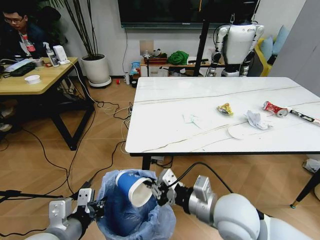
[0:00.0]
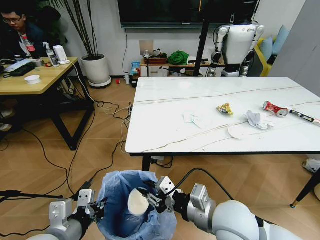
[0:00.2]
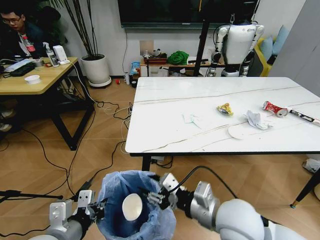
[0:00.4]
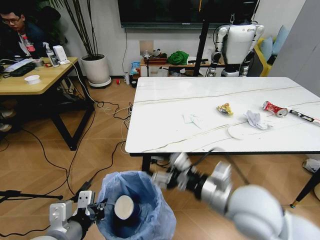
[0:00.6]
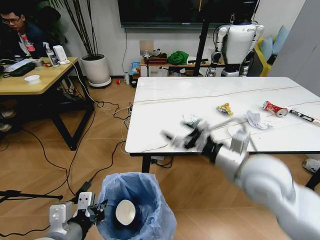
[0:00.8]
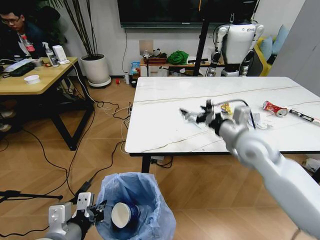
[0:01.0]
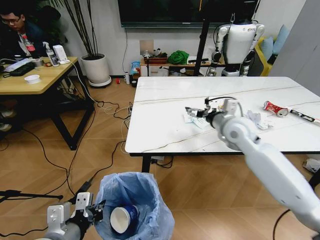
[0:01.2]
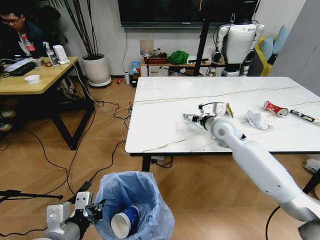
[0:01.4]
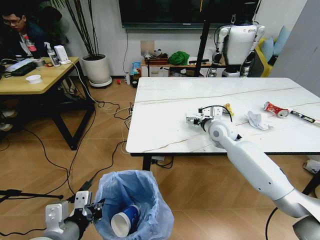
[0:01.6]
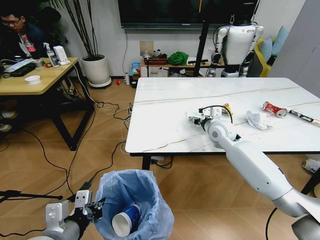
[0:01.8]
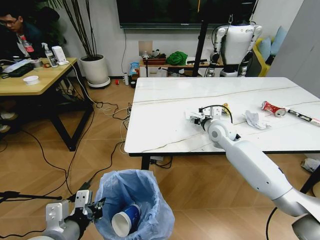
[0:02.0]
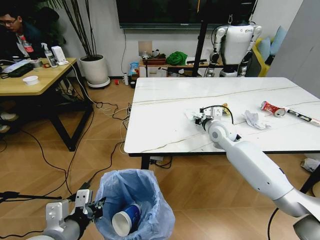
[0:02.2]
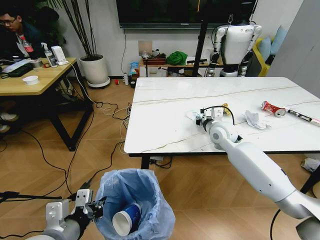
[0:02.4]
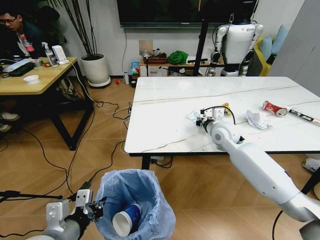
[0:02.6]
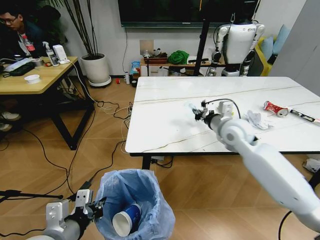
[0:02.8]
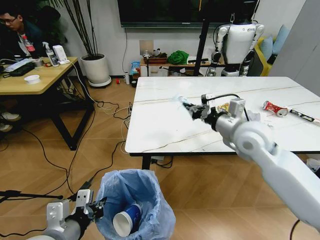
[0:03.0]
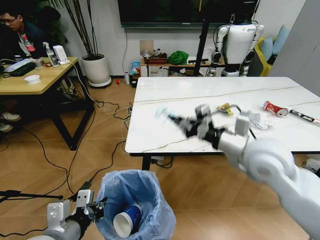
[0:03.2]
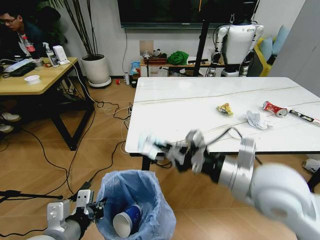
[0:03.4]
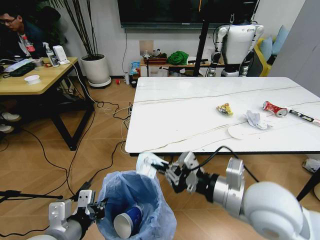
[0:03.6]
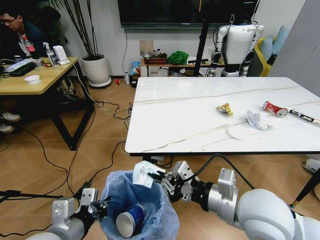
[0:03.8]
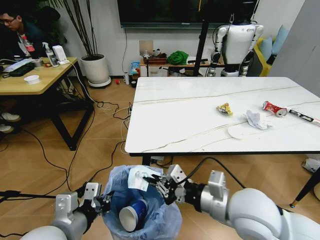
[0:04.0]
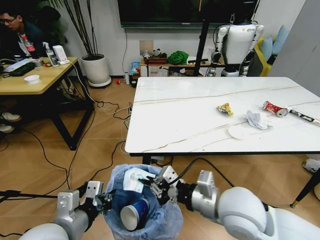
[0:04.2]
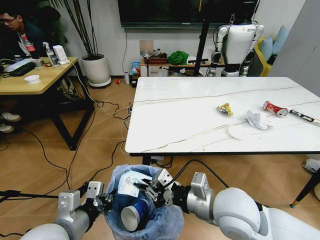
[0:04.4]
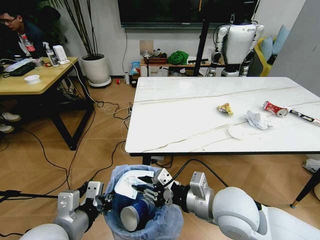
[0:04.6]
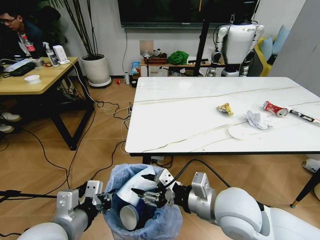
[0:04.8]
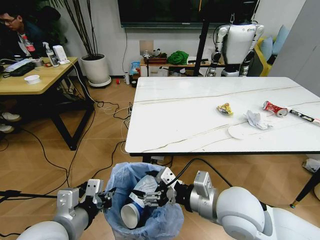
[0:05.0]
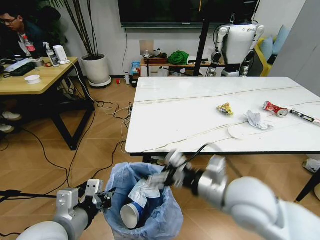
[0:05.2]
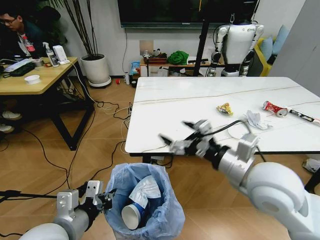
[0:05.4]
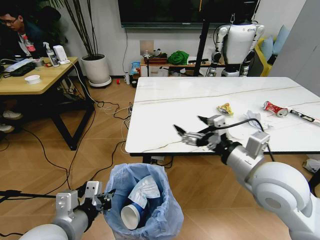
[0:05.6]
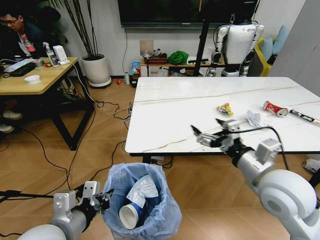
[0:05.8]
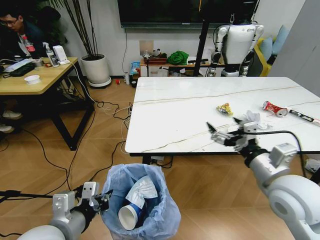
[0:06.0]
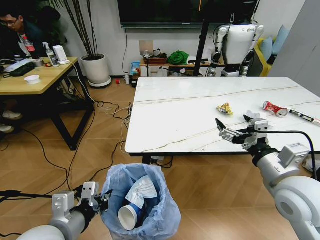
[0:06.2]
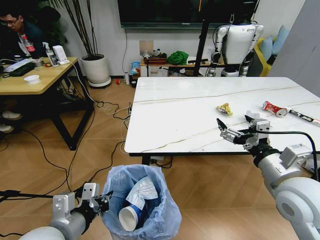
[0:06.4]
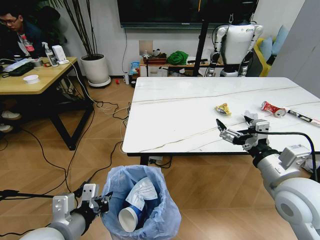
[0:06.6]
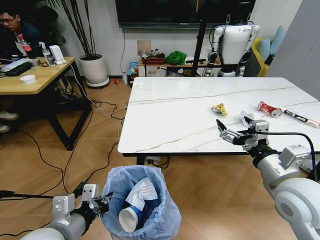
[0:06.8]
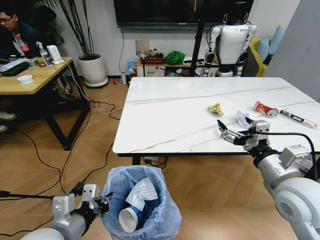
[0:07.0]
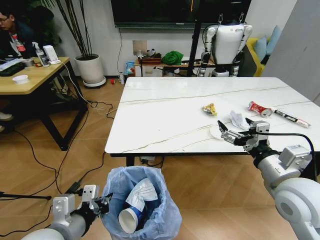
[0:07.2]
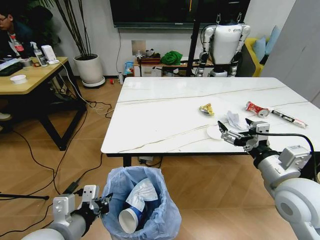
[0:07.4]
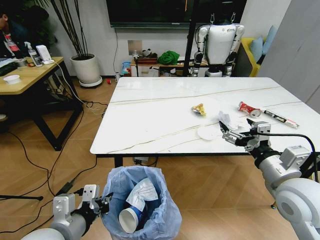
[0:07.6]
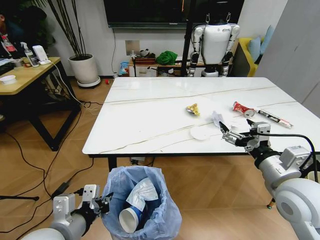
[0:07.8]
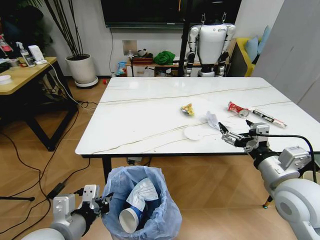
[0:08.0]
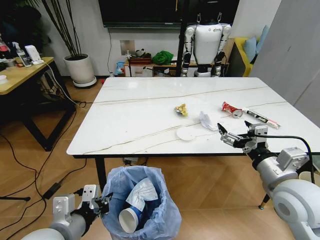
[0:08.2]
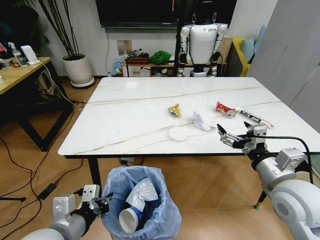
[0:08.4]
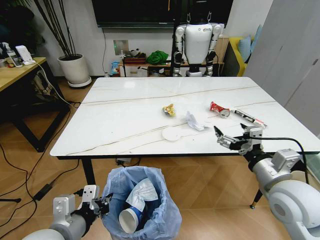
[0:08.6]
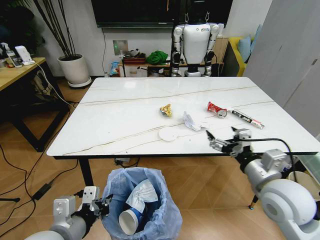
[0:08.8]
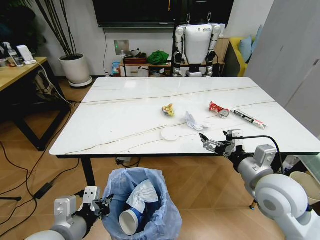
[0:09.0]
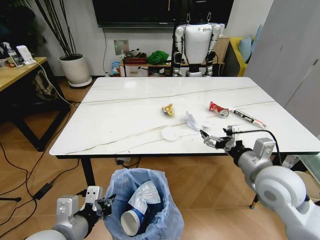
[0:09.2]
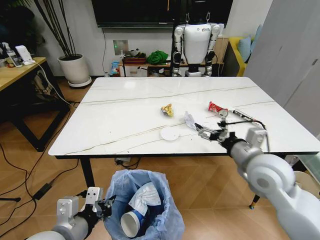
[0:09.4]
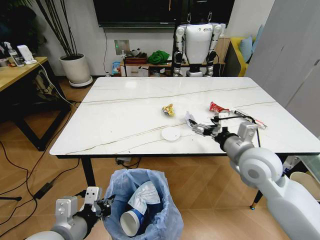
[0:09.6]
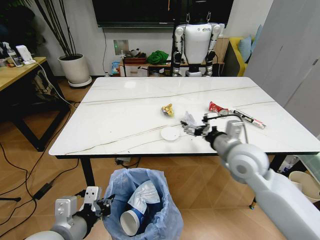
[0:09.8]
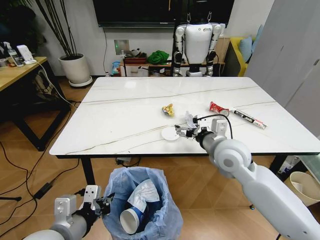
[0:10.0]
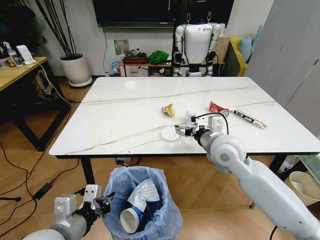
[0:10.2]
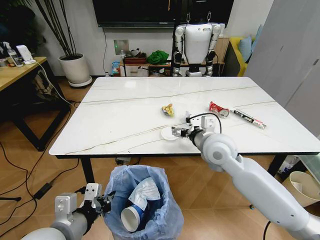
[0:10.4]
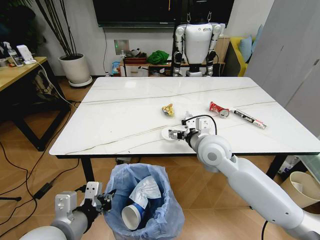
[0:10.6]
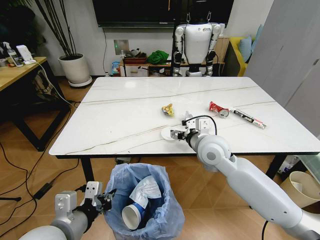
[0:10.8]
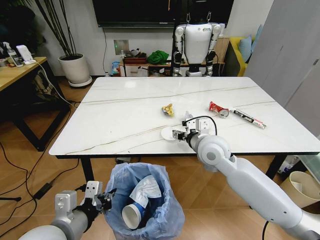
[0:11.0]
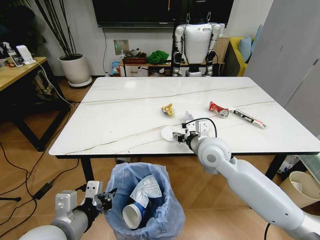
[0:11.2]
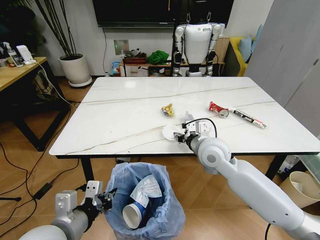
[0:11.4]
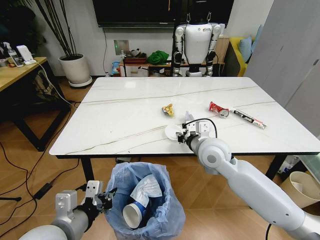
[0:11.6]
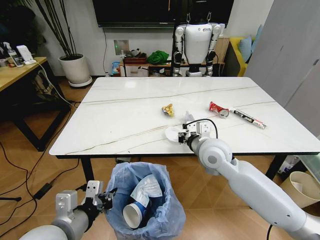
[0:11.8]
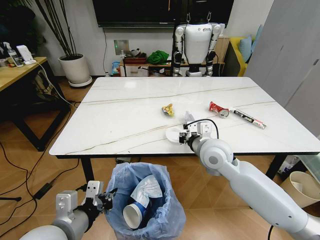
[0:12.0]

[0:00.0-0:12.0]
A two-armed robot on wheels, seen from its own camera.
Task of the whole recording: Pick up the trash bin and place the trash from the table into it.
0:00.0 to 0:01.6: The right gripper moves forward, approximately 30 cm, and opens its fingers.
0:01.6 to 0:03.0: The right gripper moves backward and upward, about 15 cm, and closes up.
0:03.0 to 0:04.4: The right gripper shifts approximately 20 cm backward, to the left and downward.
0:04.4 to 0:06.0: The right gripper moves to the right, some 15 cm, and opens up.
0:09.0 to 0:10.4: The right gripper moves forward and to the left, approximately 15 cm.
0:10.4 to 0:12.0: The right gripper closes up.

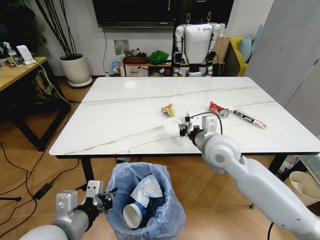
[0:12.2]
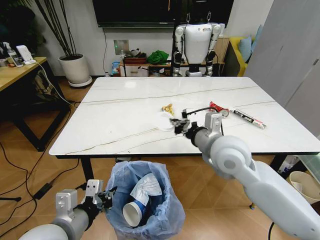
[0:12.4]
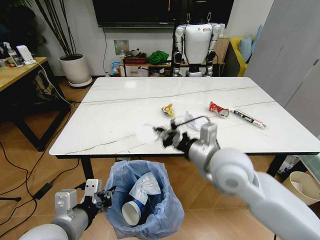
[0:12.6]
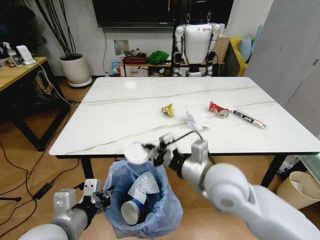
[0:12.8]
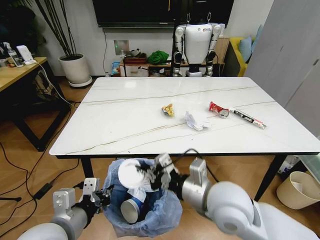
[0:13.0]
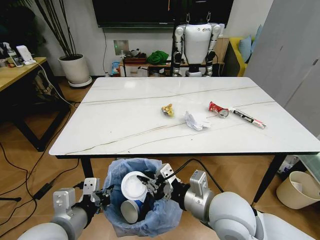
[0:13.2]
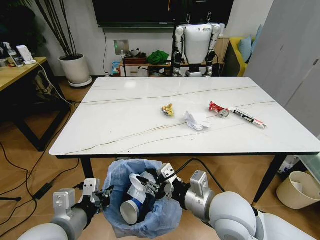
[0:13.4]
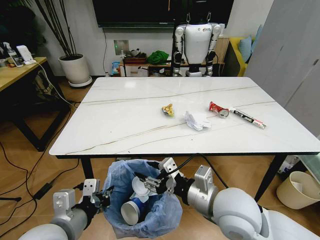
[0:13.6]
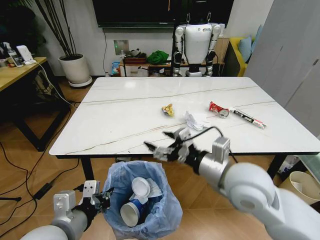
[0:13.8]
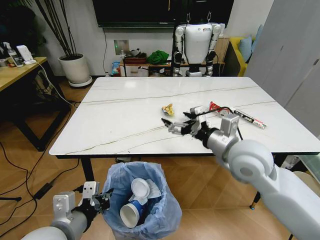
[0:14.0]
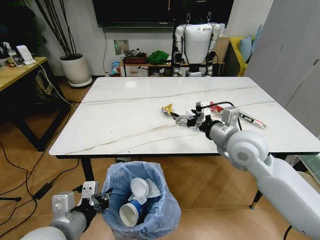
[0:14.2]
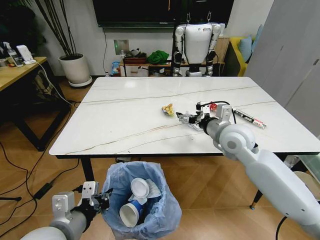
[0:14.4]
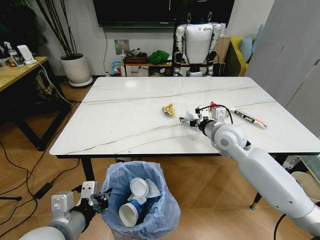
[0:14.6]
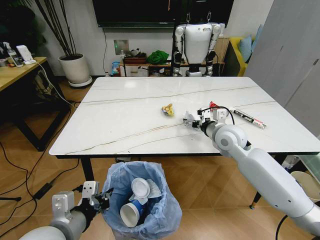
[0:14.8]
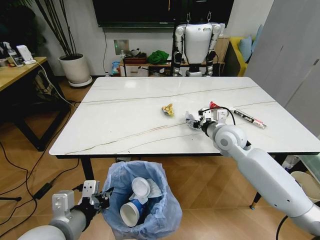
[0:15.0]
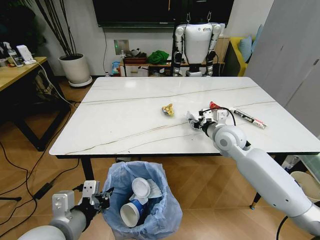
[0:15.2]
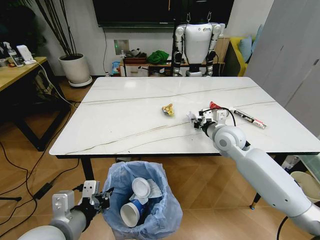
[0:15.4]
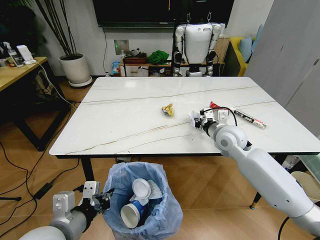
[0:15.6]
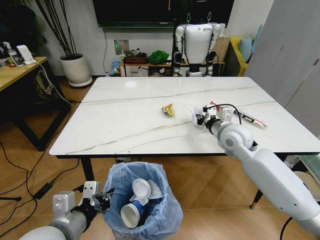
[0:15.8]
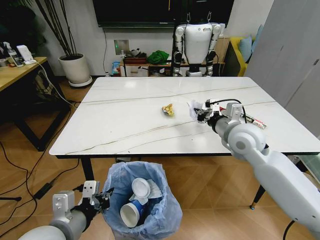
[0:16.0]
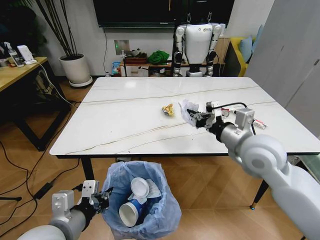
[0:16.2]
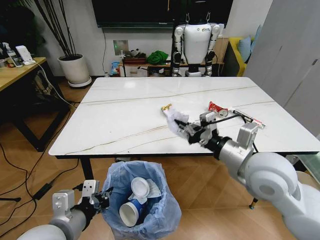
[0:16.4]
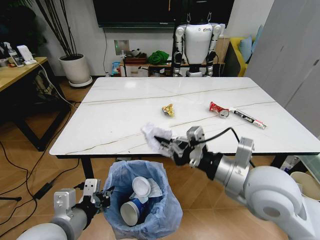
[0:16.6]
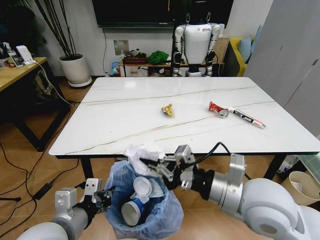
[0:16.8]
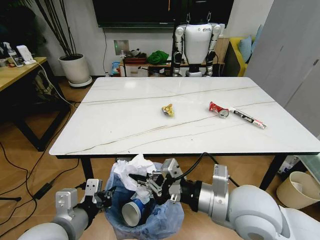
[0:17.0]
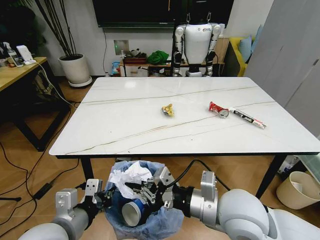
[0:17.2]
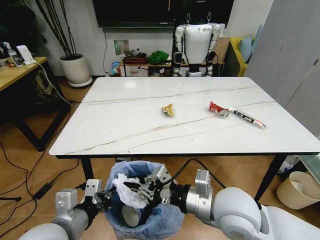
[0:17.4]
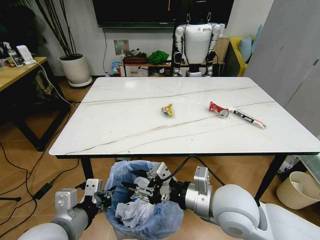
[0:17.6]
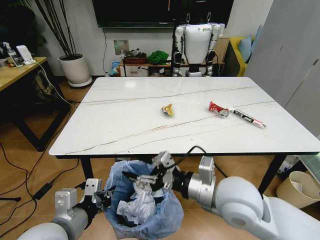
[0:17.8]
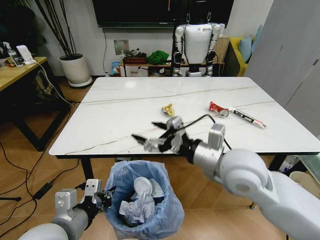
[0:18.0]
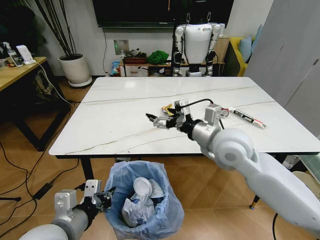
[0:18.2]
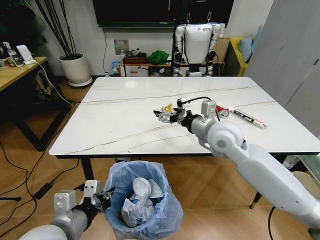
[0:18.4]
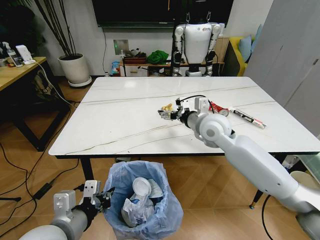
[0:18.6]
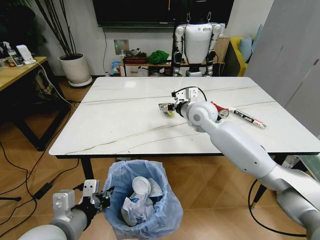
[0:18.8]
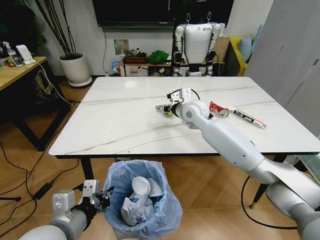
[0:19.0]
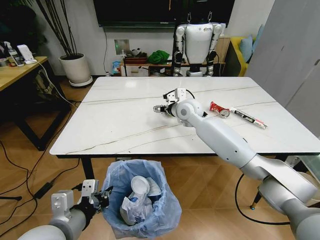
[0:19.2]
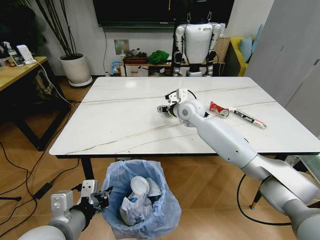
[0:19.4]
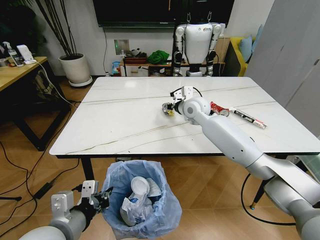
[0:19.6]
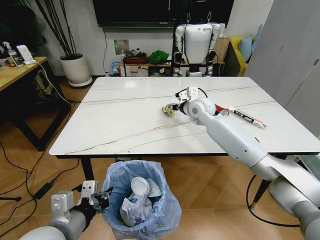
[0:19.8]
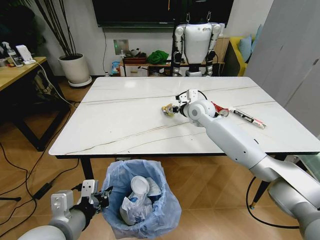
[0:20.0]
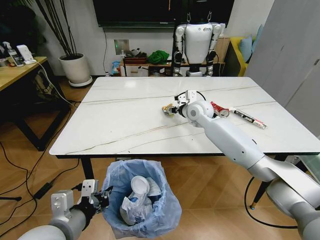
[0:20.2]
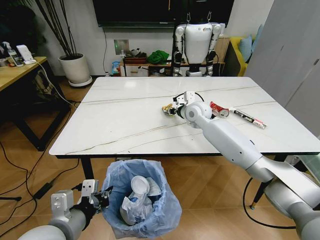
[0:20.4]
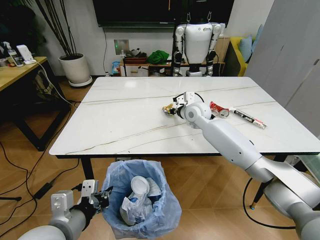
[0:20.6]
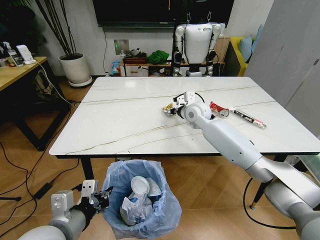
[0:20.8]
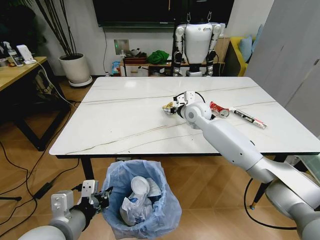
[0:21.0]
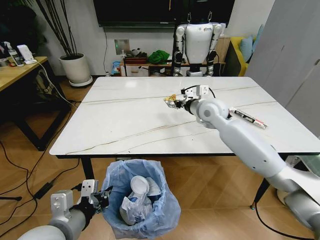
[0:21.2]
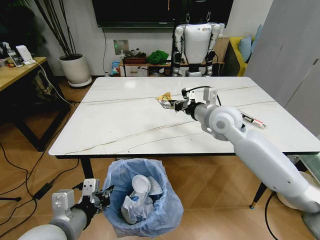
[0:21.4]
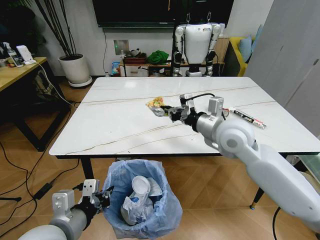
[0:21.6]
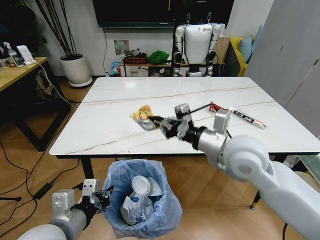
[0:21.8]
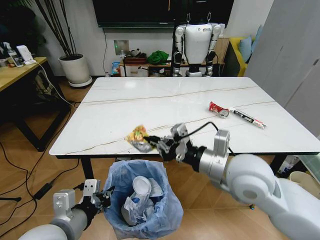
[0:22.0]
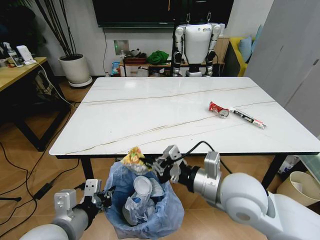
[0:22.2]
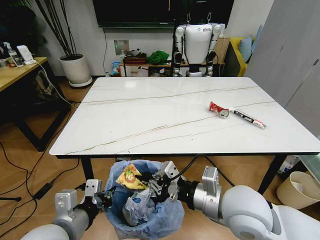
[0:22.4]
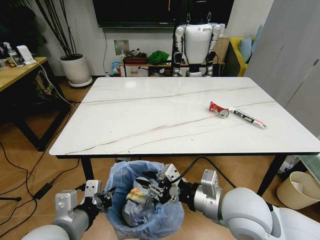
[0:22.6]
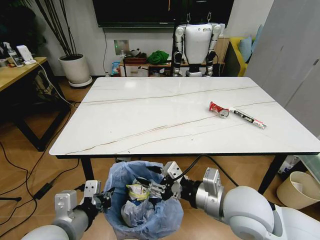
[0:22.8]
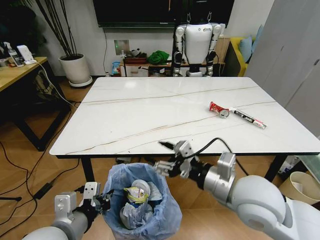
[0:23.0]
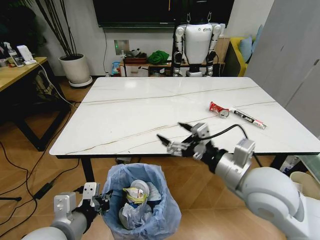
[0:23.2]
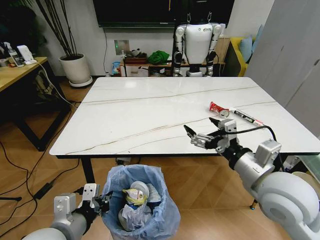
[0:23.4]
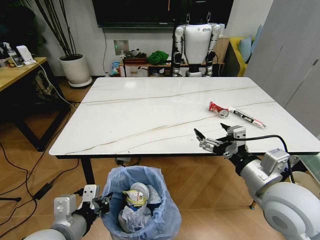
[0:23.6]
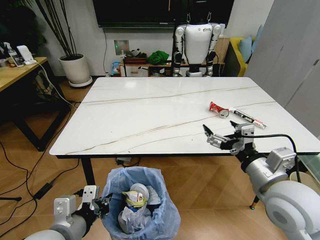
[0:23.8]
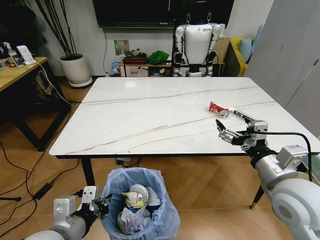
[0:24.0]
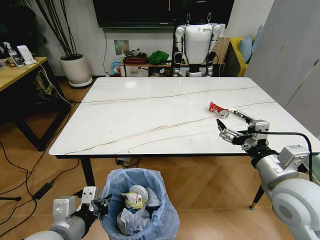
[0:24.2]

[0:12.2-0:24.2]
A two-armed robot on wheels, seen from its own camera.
Task of the whole recording: Pick up the trash bin and place the trash from the table into it.
0:12.2 to 0:13.8: The right gripper travels backward by some 10 cm, and opens its fingers.
0:13.8 to 0:15.2: The right gripper heads forward, covering about 20 cm.
0:15.2 to 0:16.6: The right gripper goes about 20 cm backward, and closes.
0:16.6 to 0:18.2: The right gripper heads forward, covering roughly 10 cm, and opens its fingers.
0:18.2 to 0:19.8: The right gripper moves forward, about 25 cm.
0:19.8 to 0:21.2: The right gripper closes.
0:21.2 to 0:22.6: The right gripper shifts some 30 cm backward.
0:22.6 to 0:24.2: The right gripper is displaced to the right by about 10 cm, and opens.
